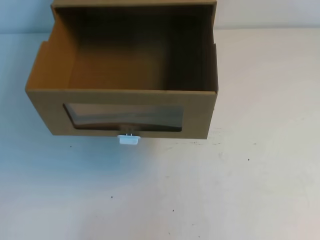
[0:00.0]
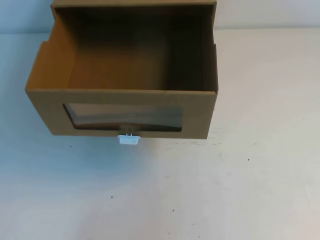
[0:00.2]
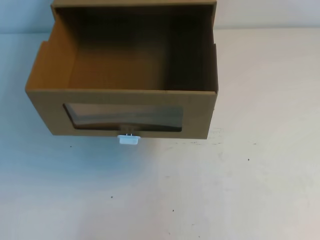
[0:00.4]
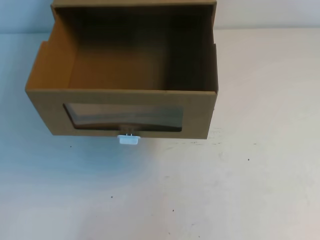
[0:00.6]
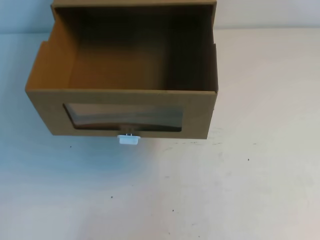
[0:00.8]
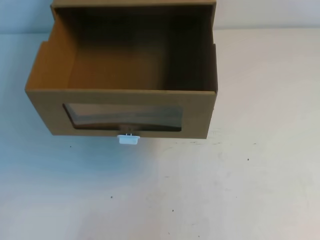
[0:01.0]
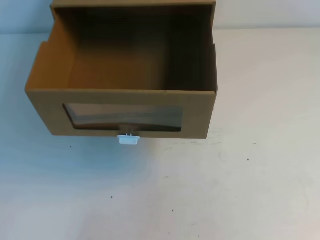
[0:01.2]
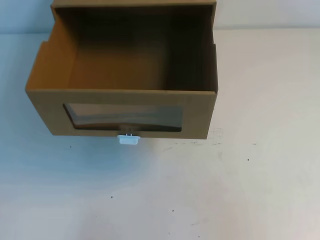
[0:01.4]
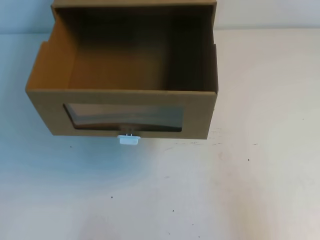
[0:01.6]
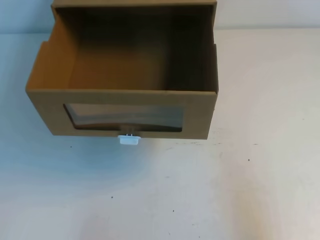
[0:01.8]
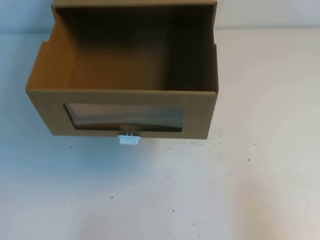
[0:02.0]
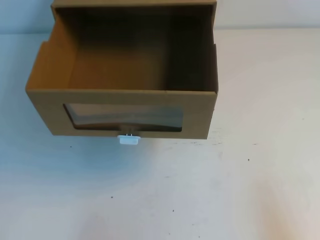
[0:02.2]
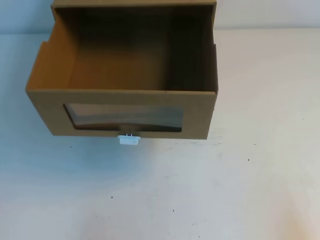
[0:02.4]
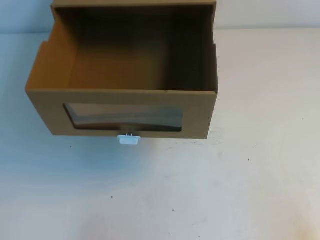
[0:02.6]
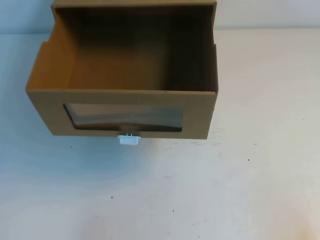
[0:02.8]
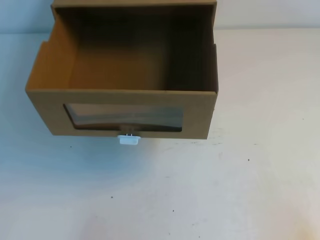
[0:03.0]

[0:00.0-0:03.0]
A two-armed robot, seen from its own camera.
Task of the whole recording: open the shoebox on the table.
0:00.0 to 0:01.6: The right gripper shifts about 10 cm downward.
0:01.6 to 0:03.0: The right gripper shifts about 15 cm downward.

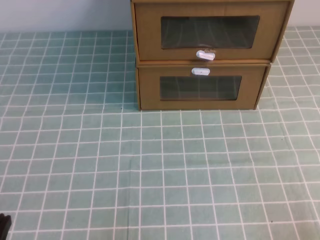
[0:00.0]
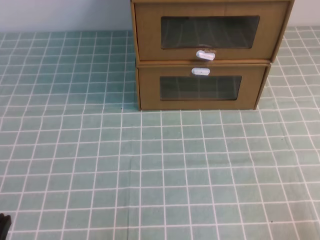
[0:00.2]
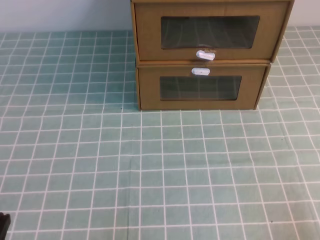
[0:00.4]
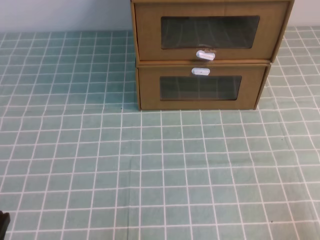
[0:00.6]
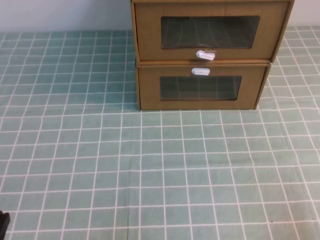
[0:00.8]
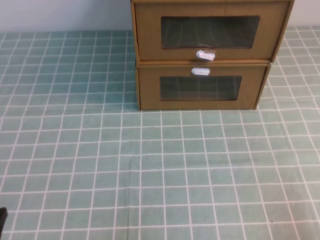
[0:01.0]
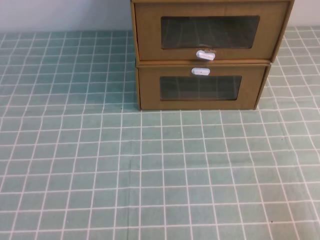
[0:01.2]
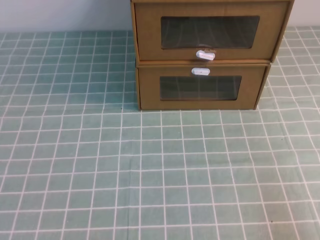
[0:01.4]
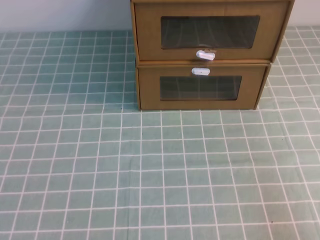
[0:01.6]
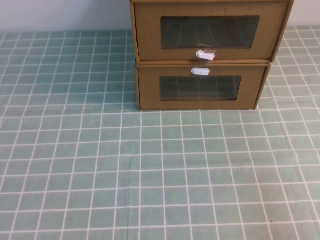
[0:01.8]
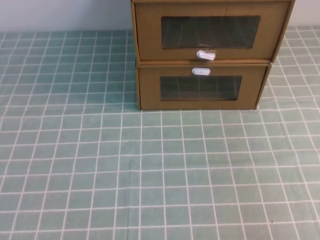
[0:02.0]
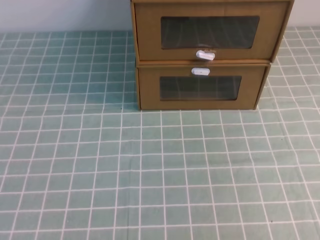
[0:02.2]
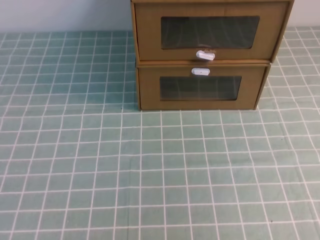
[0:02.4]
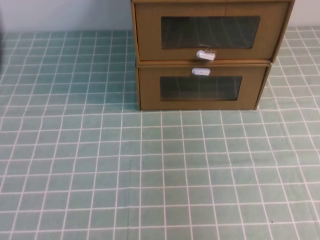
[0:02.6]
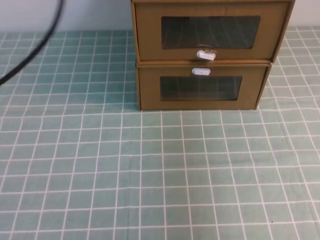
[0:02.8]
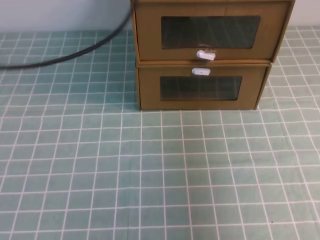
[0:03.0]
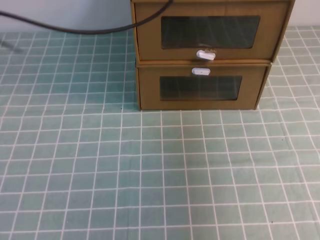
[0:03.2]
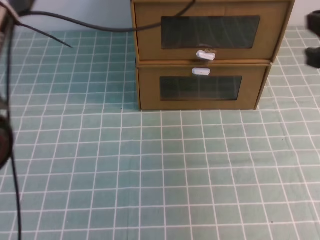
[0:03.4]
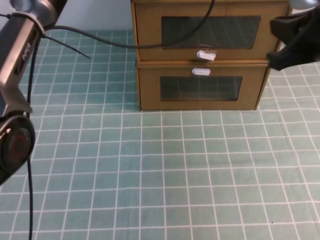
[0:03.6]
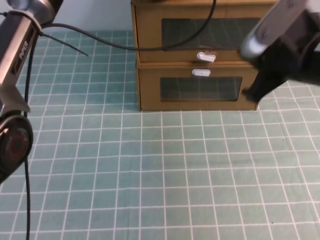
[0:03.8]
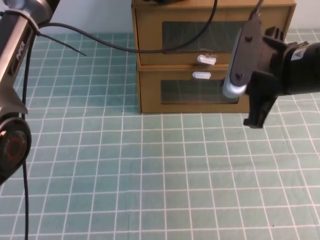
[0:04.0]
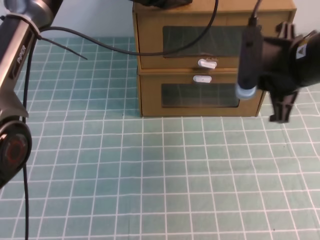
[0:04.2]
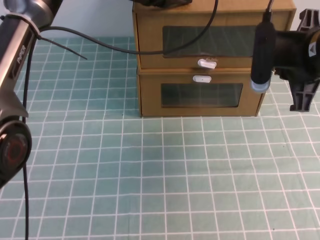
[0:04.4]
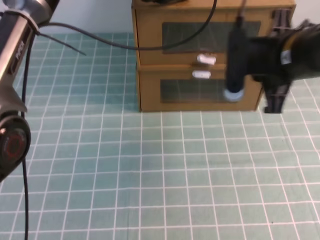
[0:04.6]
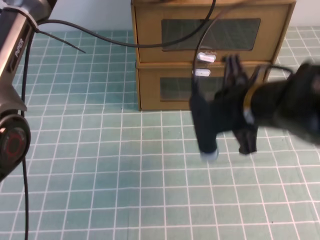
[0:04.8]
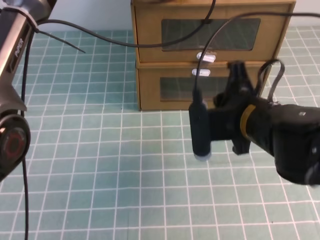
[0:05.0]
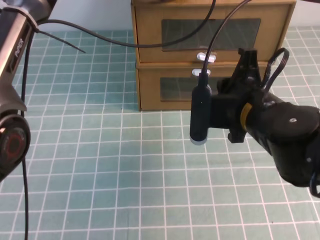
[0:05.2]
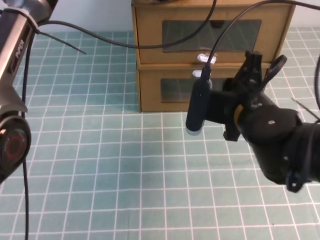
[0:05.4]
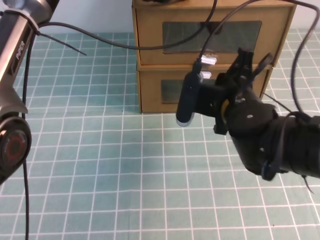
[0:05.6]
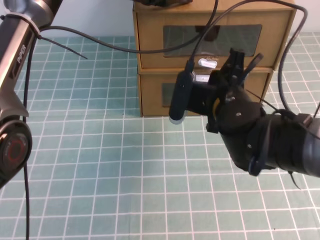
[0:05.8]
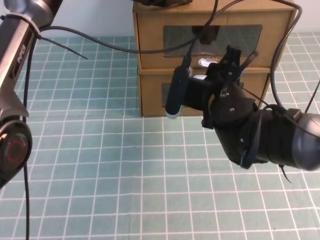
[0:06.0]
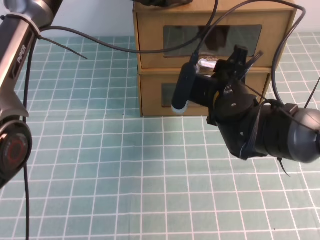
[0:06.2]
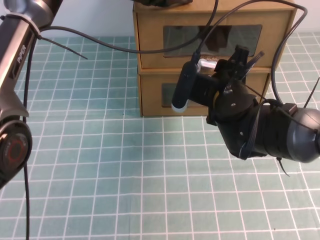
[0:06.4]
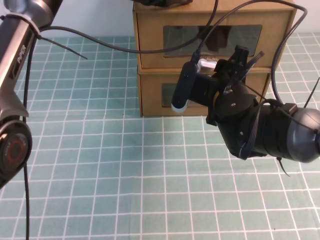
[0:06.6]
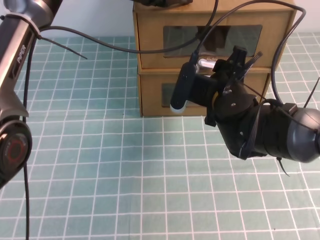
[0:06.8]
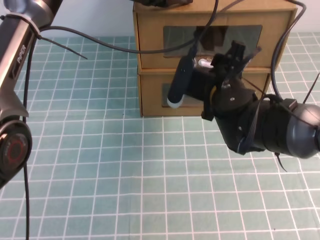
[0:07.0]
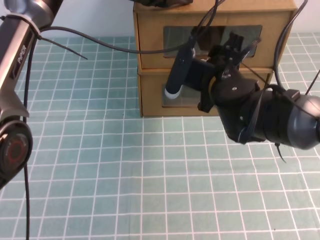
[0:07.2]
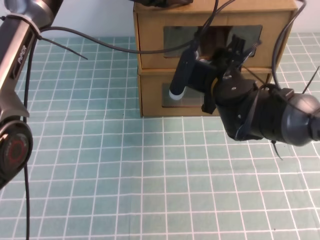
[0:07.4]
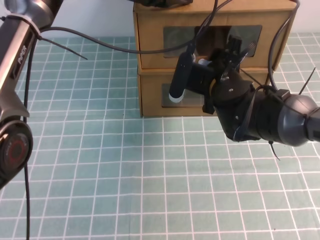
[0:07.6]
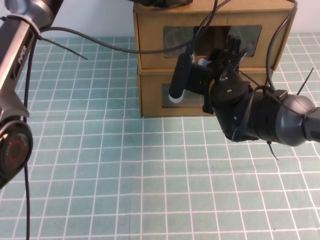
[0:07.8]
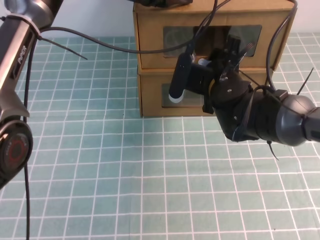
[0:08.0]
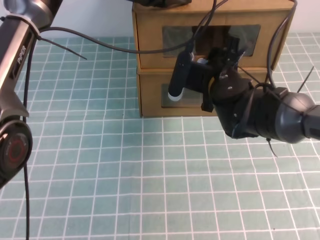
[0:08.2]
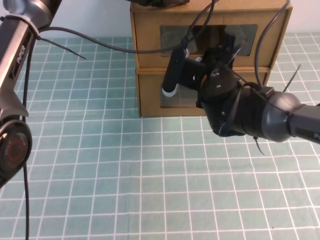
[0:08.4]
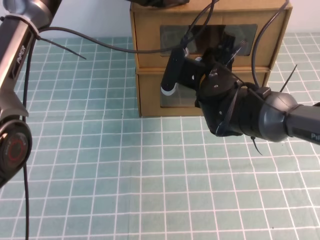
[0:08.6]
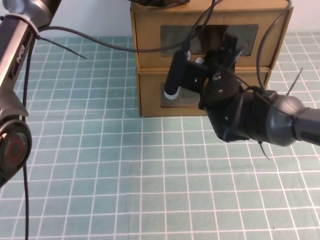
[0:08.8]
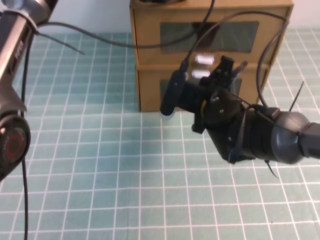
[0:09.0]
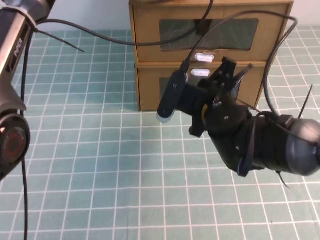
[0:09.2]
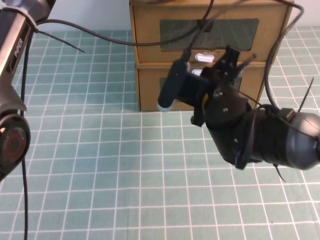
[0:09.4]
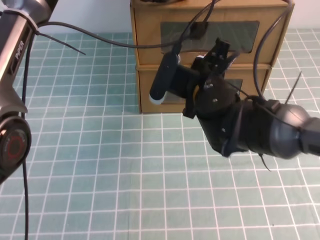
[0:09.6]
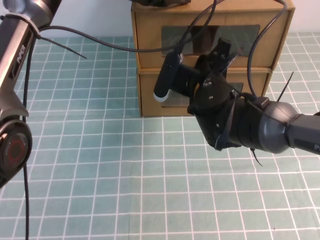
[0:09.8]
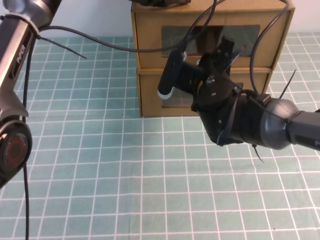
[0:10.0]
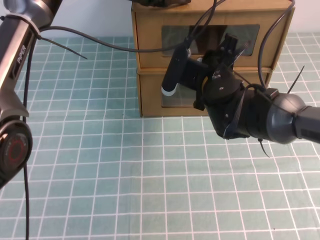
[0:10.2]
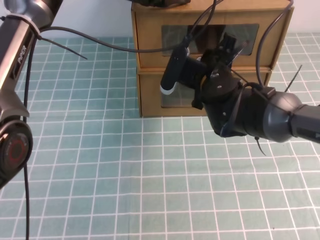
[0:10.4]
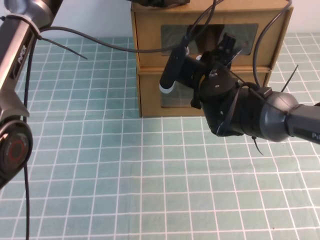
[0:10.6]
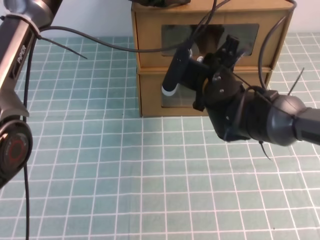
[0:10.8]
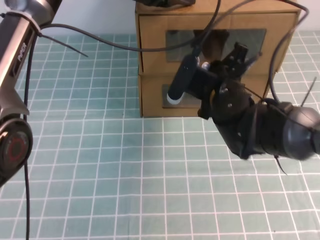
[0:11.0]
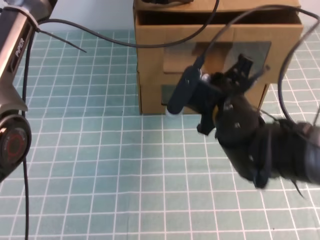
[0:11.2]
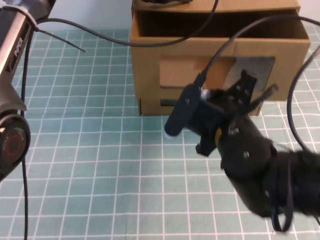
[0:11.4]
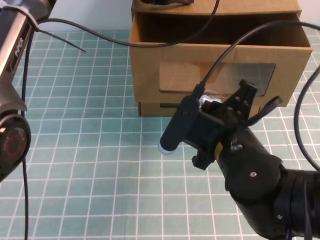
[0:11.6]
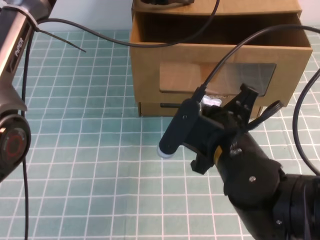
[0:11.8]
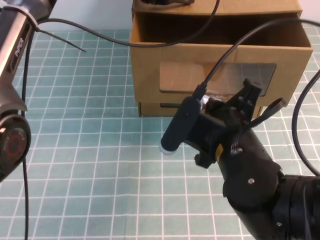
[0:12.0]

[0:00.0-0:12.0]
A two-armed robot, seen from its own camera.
Task of the whole recording: open the shoebox on the cyan tablecloth.
0:01.6 to 0:03.0: The right gripper moves upward and forward, some 25 cm, while the left gripper is displaced forward and upward by some 35 cm.
0:03.0 to 0:04.4: The left gripper is displaced forward, to the right and downward by some 20 cm, while the right gripper shifts approximately 20 cm to the left, forward and downward.
0:04.4 to 0:06.0: The right gripper goes some 15 cm to the left and downward, and opens.
0:06.0 to 0:07.6: The grippers move only a little.
0:07.6 to 0:09.0: The right gripper closes.
0:10.4 to 0:12.0: The right gripper shifts some 15 cm backward.

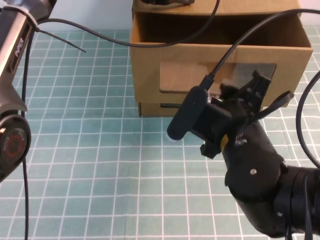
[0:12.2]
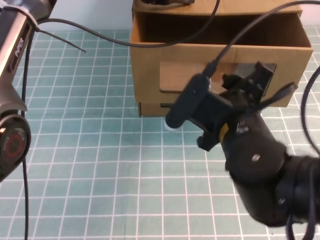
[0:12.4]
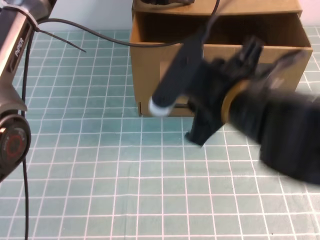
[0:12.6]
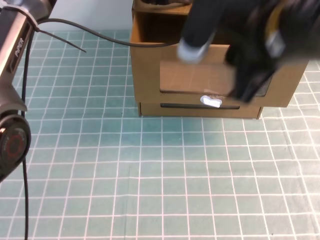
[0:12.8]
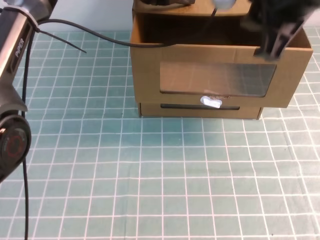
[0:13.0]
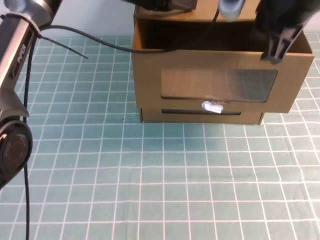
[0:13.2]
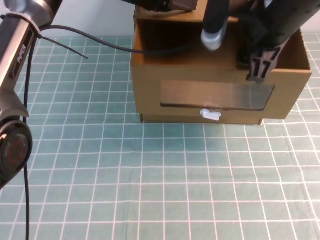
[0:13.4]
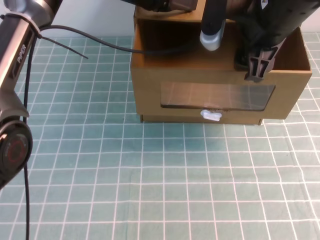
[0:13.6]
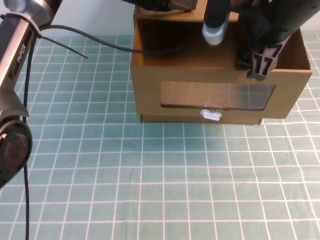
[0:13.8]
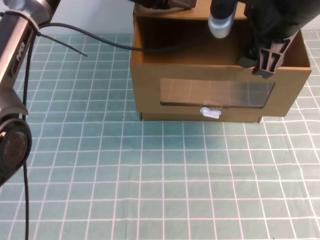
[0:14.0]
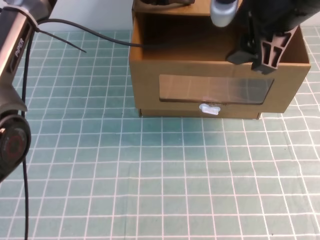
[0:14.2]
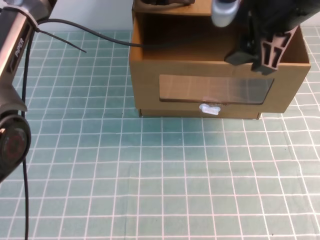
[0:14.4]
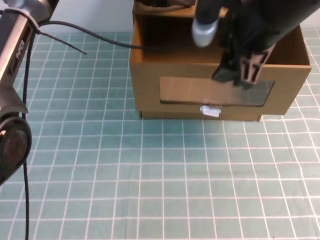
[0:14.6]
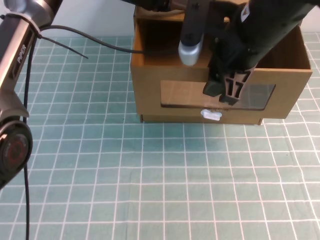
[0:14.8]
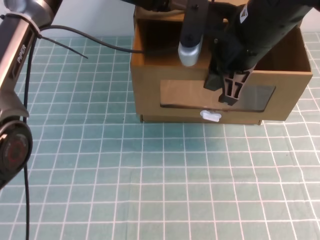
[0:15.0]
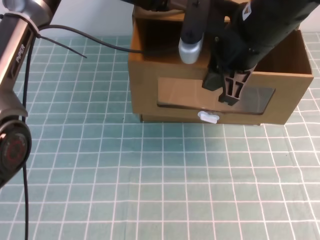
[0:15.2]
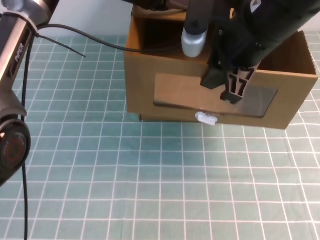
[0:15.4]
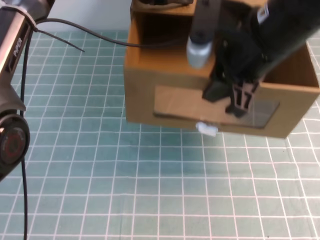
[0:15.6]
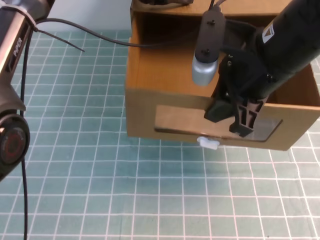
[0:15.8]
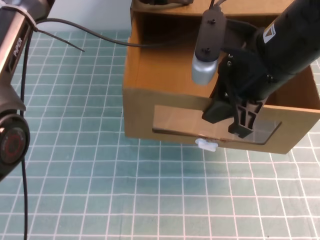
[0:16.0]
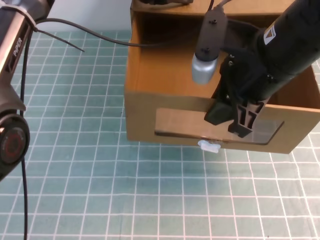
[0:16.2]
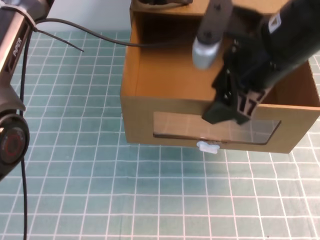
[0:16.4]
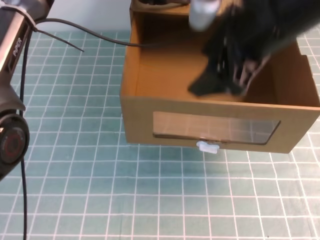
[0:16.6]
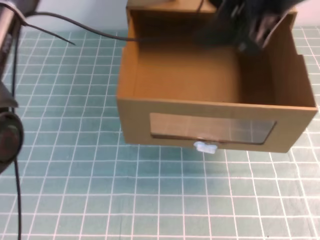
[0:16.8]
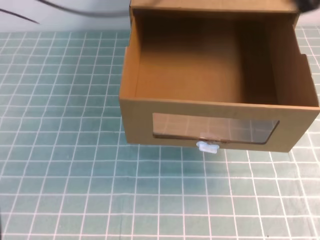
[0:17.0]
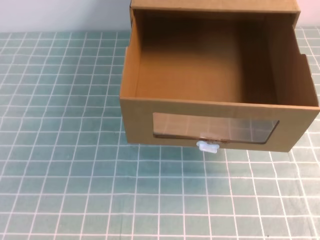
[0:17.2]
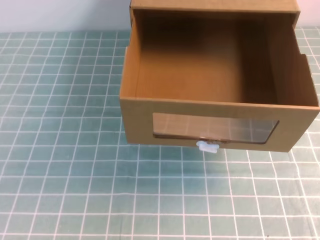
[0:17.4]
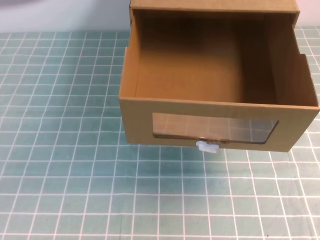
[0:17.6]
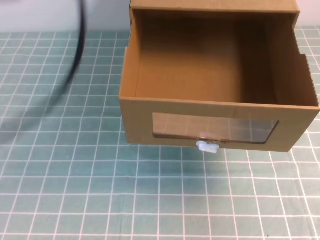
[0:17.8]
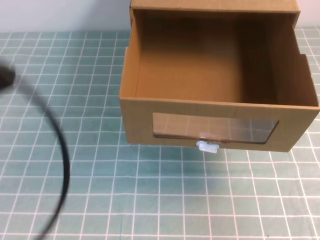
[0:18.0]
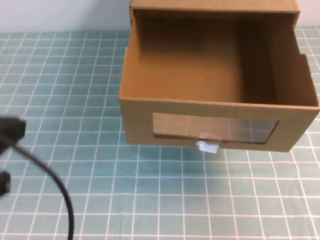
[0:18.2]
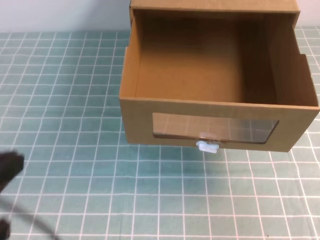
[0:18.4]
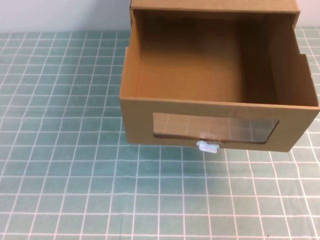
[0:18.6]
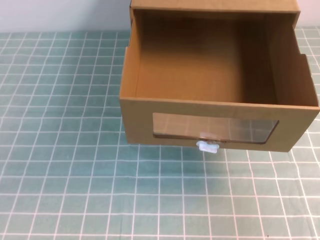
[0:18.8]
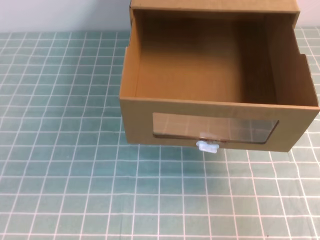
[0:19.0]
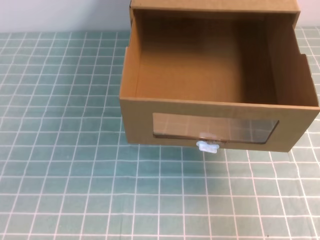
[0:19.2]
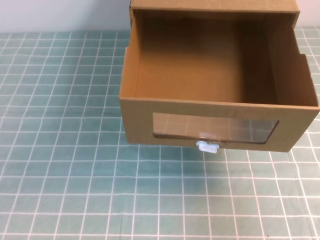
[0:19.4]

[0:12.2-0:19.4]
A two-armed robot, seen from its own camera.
Task of the whole recording: open the shoebox on the cyan tablecloth.
0:12.2 to 0:13.6: The right gripper shifts roughly 15 cm upward, forward and to the right, and opens up.
0:13.6 to 0:15.0: The right gripper closes up.
0:15.0 to 0:16.6: The right gripper moves backward, roughly 5 cm, and opens its fingers.
0:16.6 to 0:18.0: The left gripper is displaced backward and to the left by roughly 35 cm. The right gripper travels backward and to the right by about 25 cm, and closes up.
0:18.0 to 0:19.4: The left gripper moves downward and backward, about 20 cm.
